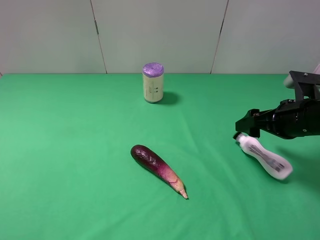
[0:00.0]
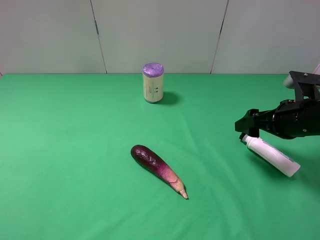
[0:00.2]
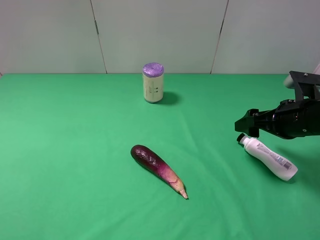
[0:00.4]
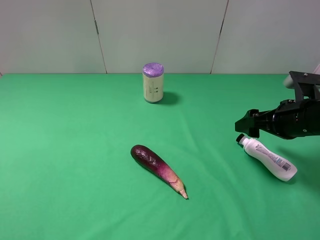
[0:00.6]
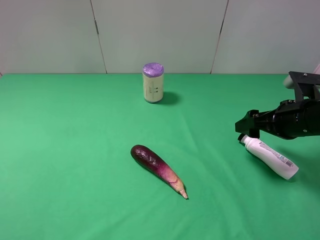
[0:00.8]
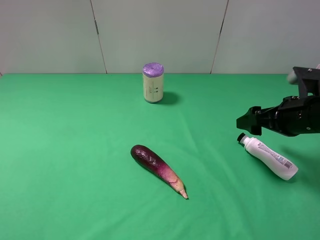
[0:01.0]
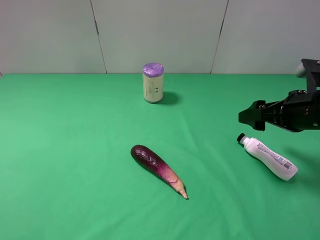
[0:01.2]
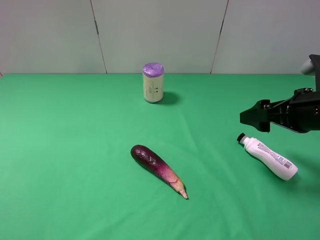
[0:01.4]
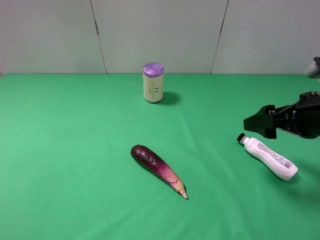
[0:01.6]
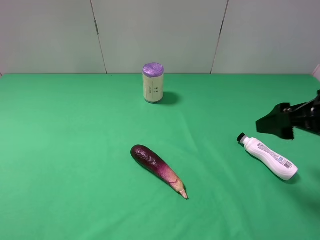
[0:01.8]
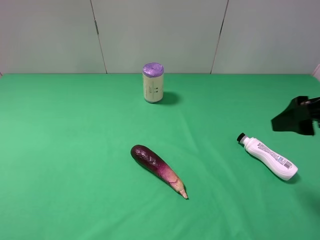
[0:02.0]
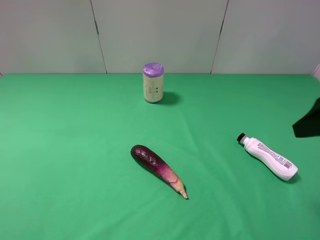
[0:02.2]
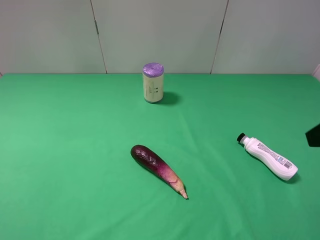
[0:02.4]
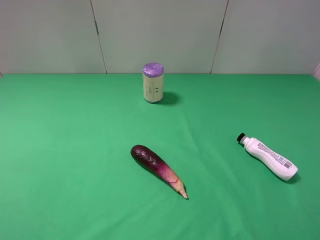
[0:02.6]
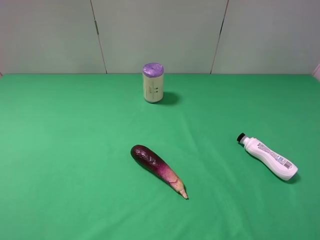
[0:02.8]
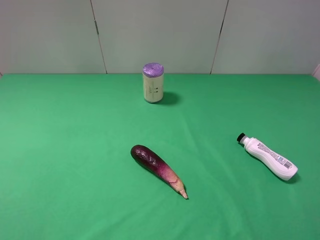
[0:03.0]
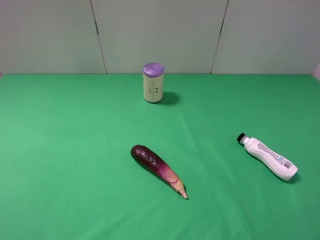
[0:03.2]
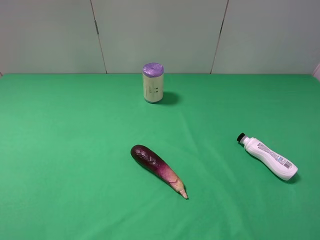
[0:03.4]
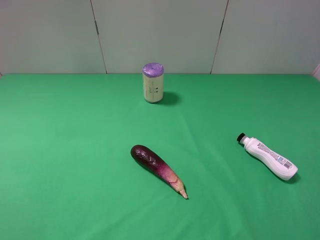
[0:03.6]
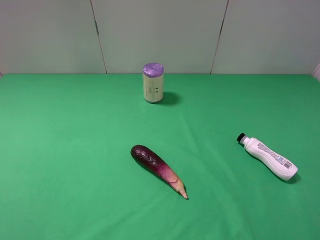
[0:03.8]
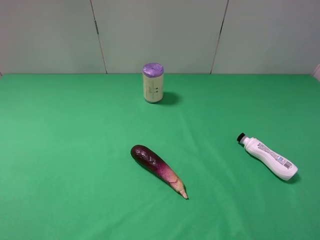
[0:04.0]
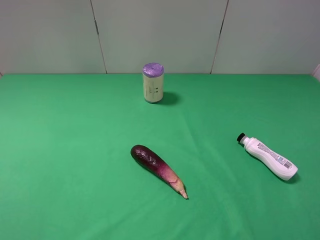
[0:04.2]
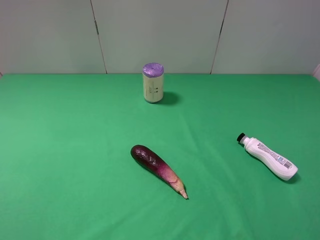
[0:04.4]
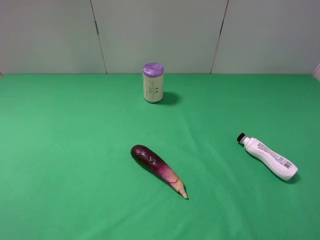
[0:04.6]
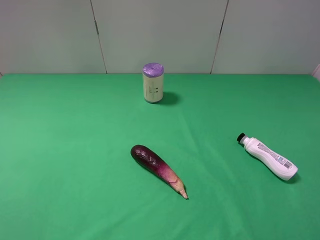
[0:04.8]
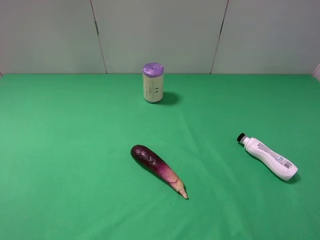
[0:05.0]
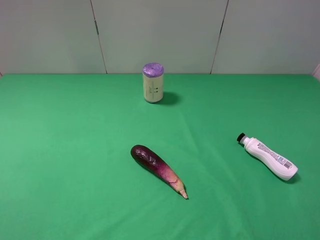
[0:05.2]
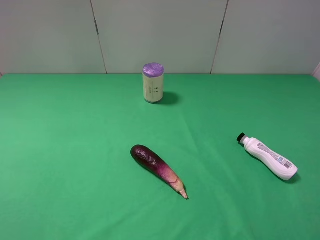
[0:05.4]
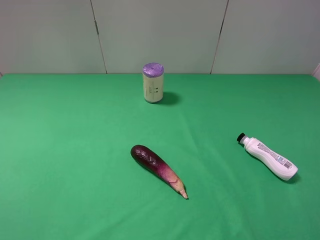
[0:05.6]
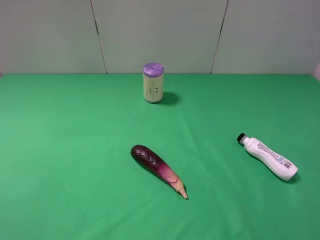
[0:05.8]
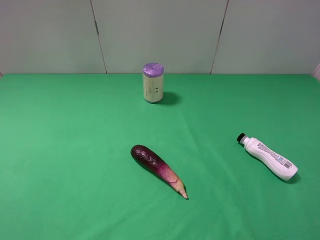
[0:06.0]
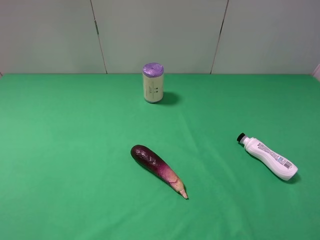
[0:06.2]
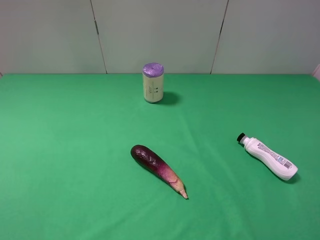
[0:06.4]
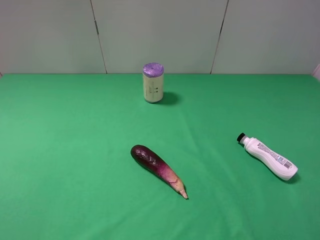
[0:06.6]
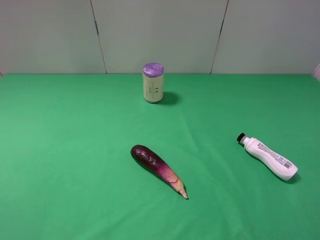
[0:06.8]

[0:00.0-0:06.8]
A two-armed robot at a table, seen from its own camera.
Task of the whole recording: use the left gripper to pick up the item and transfer it from the left gripper to the right gripper.
0:00.0 to 0:01.4: There are only small adjustments of the grippers.
0:01.4 to 0:02.8: The right gripper goes approximately 20 cm backward and upward.
